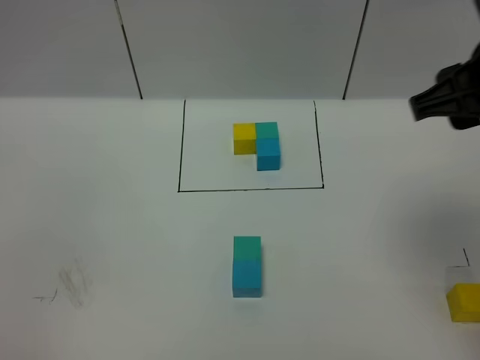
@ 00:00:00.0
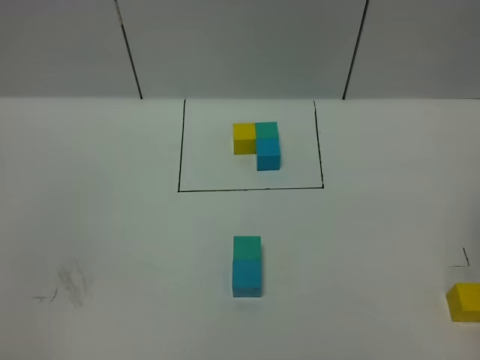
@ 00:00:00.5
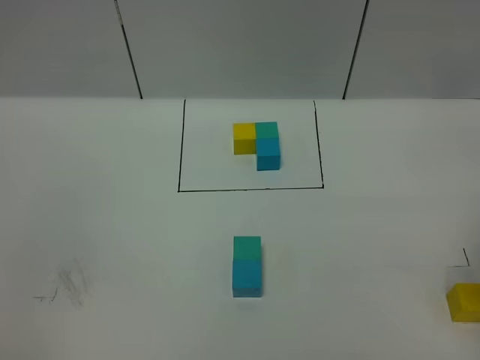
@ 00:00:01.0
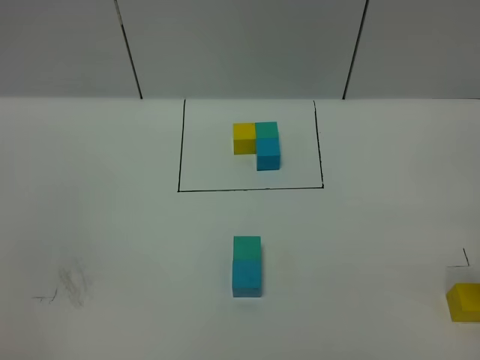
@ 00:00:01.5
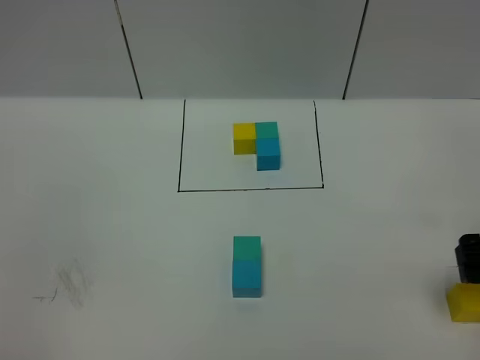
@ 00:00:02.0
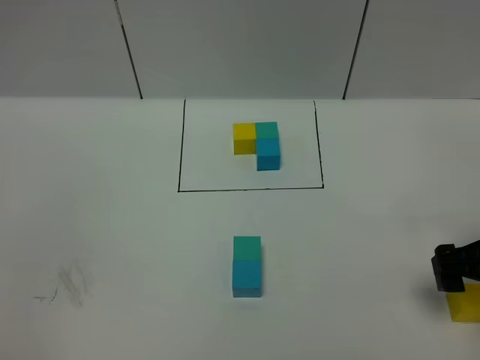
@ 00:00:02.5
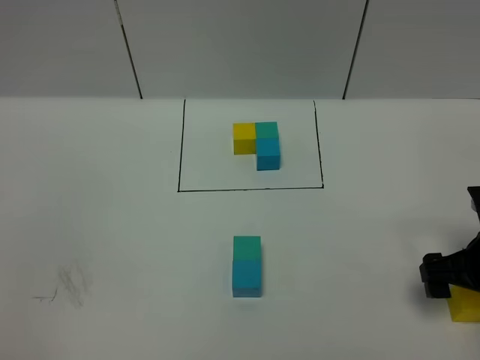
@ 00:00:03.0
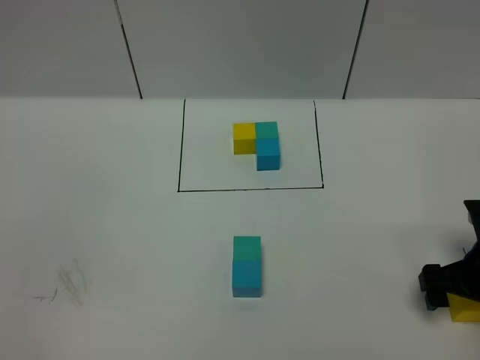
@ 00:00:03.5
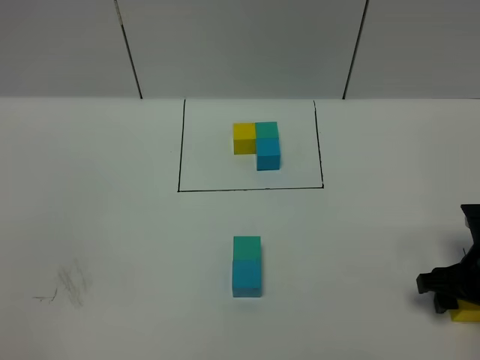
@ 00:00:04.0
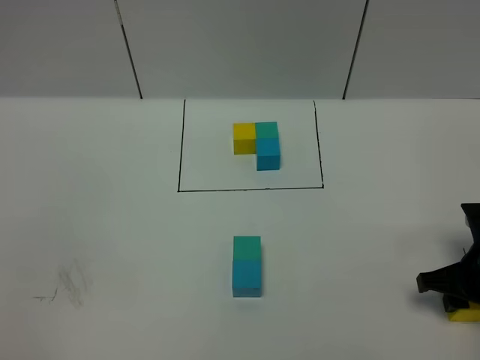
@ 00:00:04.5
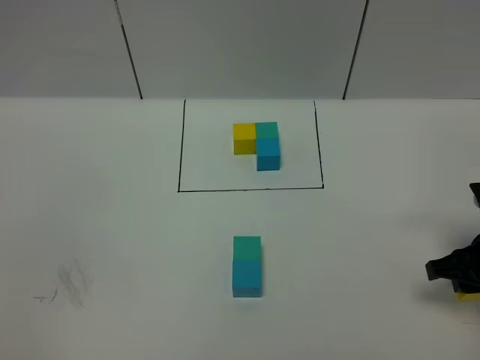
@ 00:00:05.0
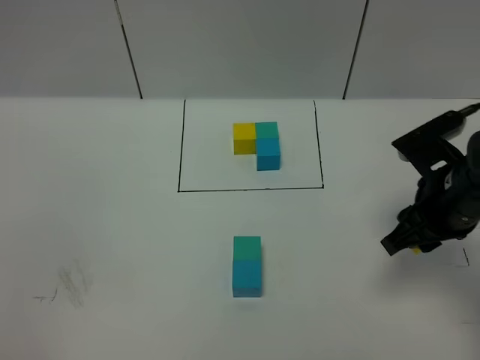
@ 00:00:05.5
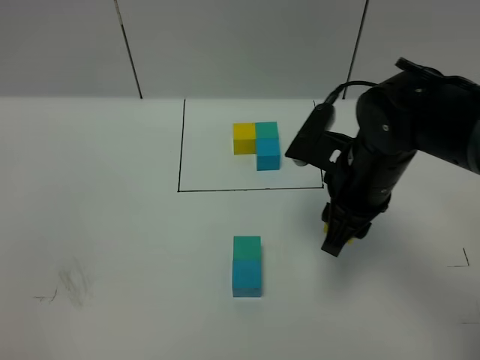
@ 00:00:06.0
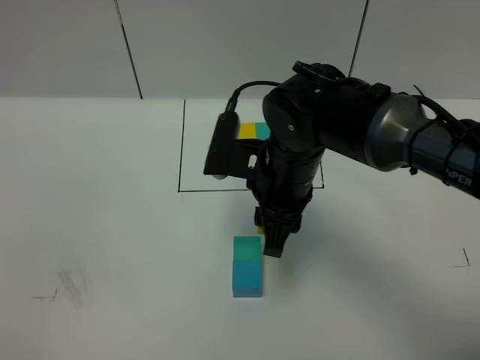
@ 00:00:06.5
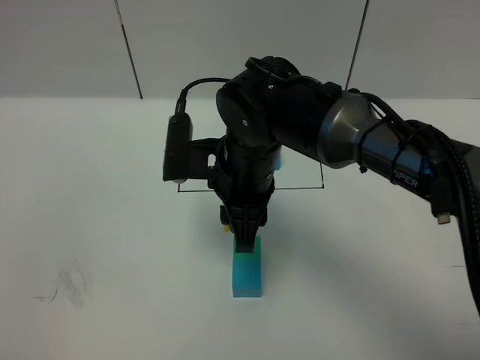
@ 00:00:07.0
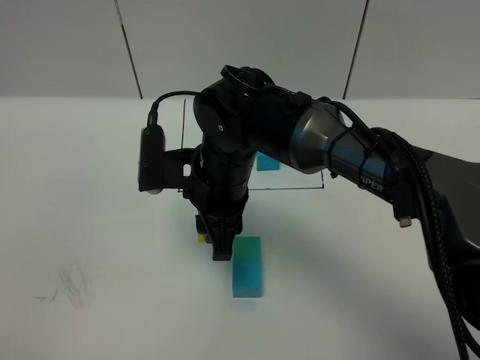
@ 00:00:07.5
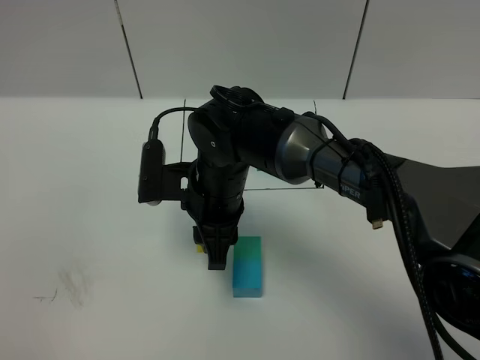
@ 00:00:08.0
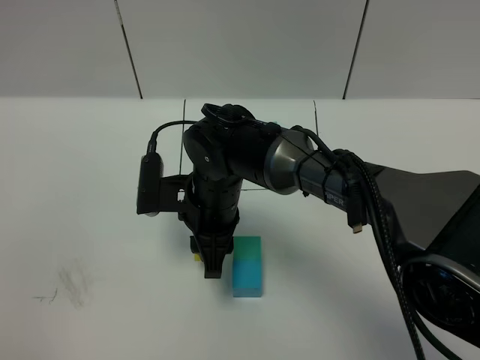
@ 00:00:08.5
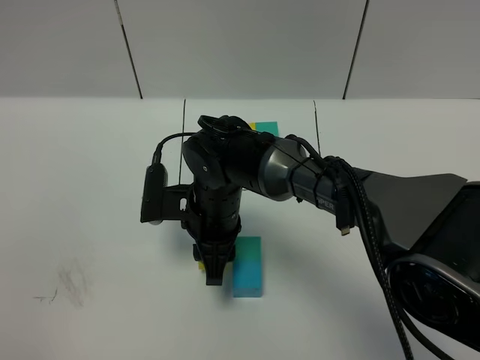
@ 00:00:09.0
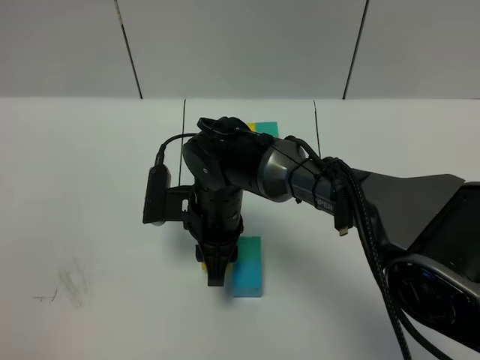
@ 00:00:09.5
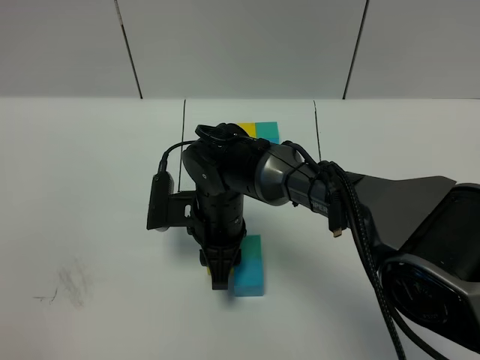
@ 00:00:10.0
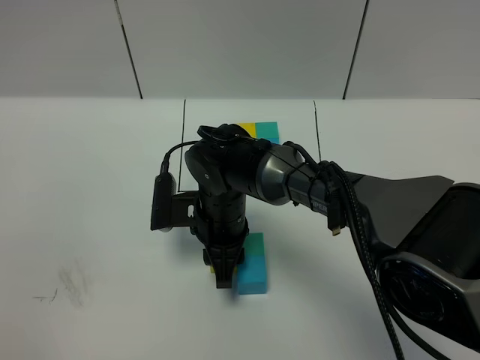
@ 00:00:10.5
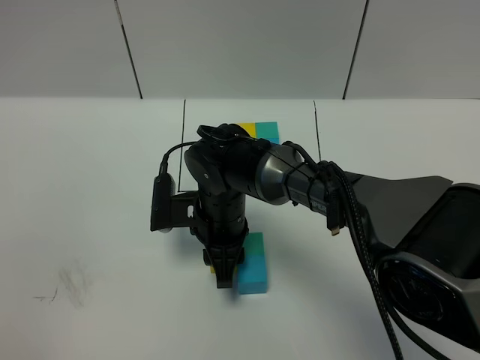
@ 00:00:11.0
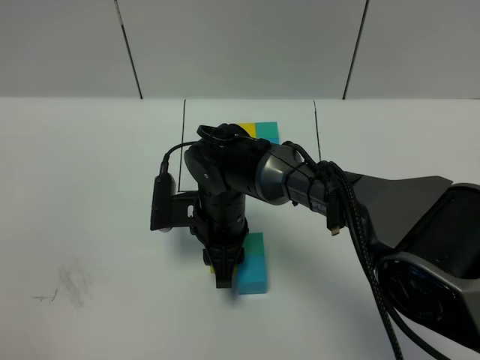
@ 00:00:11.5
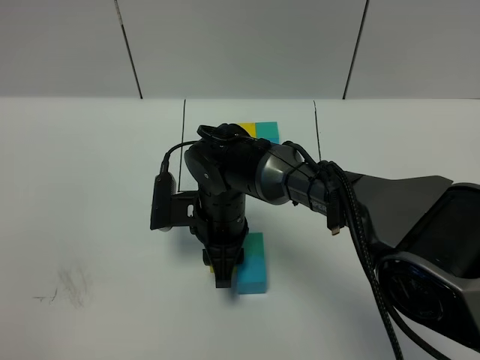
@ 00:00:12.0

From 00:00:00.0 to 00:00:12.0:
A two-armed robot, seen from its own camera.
Task of the whole recording: According to the building block template in front, assemble the scattered blocks together.
From 00:00:00.0 to 00:00:02.0: The right gripper heads downward and to the right, covering about 20 cm, and opens.
From 00:00:02.0 to 00:00:04.0: The right gripper moves downward, about 10 cm, and closes up.
From 00:00:04.0 to 00:00:06.0: The right gripper moves to the left and upward, roughly 20 cm.
From 00:00:06.0 to 00:00:08.0: The right gripper goes about 15 cm to the left.
From 00:00:08.0 to 00:00:10.0: The right gripper heads downward, covering about 5 cm.
From 00:00:10.0 to 00:00:12.0: Both grippers stay about where they are.

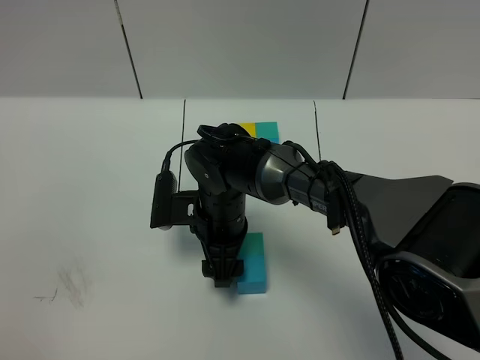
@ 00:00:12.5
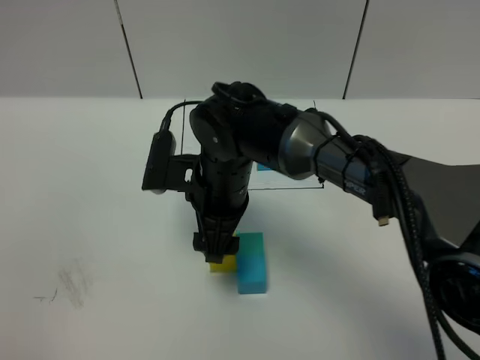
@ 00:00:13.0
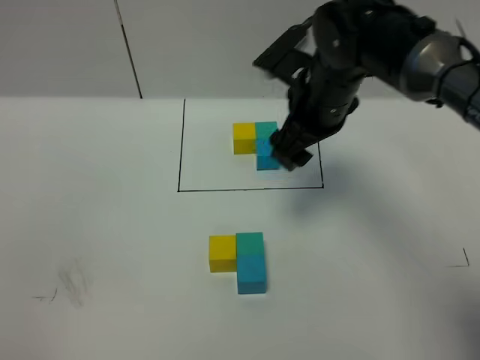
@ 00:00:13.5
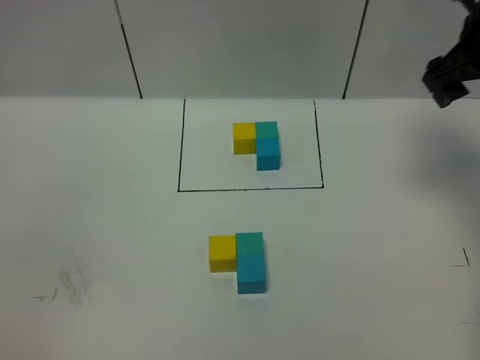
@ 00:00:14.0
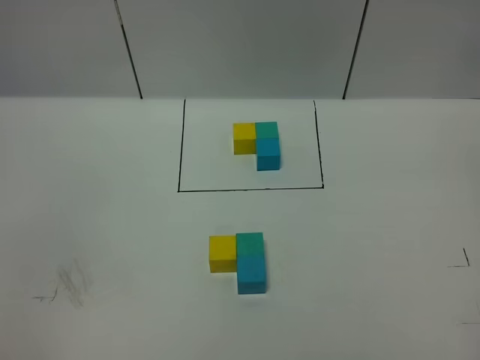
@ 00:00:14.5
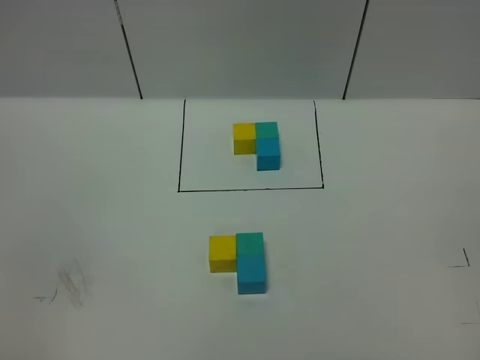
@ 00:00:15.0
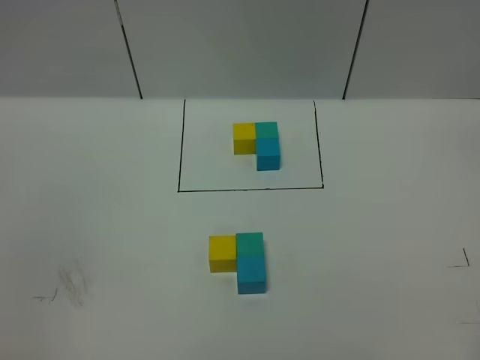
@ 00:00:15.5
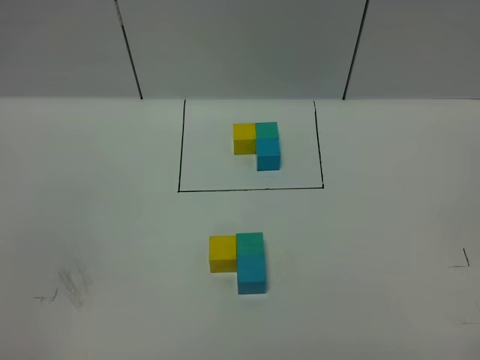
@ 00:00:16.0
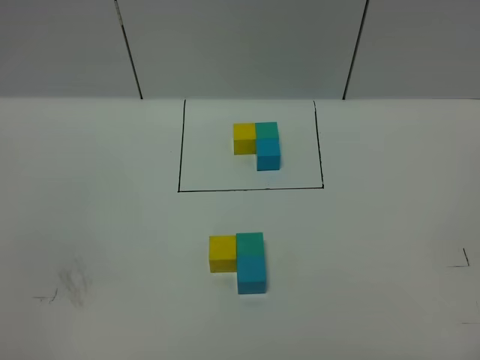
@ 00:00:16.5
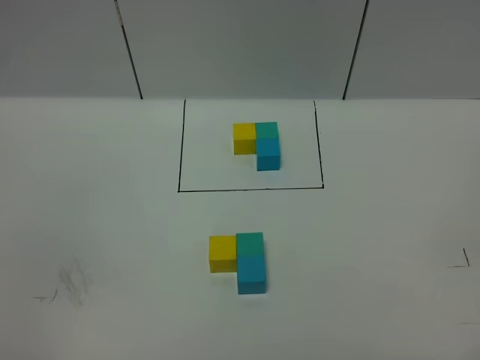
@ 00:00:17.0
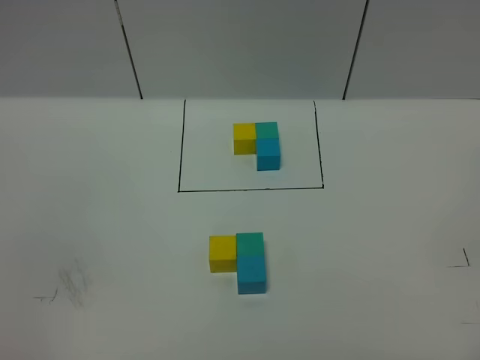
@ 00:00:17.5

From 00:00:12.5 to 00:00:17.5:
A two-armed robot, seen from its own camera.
Task of the whole recording: According to the building block template in front, assemble the scattered blocks together.
From 00:00:12.5 to 00:00:15.0: The right gripper shifts roughly 50 cm to the right, upward and backward.
